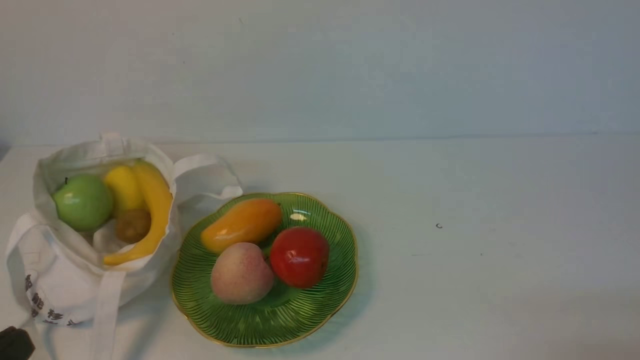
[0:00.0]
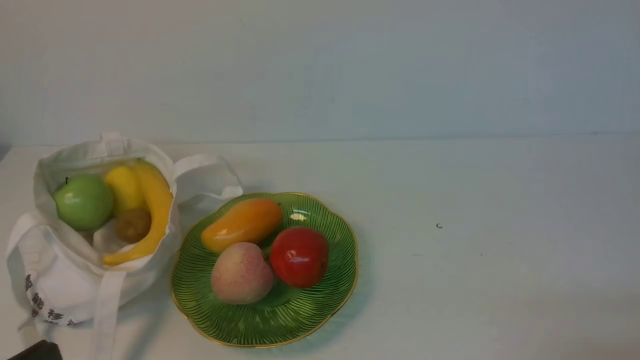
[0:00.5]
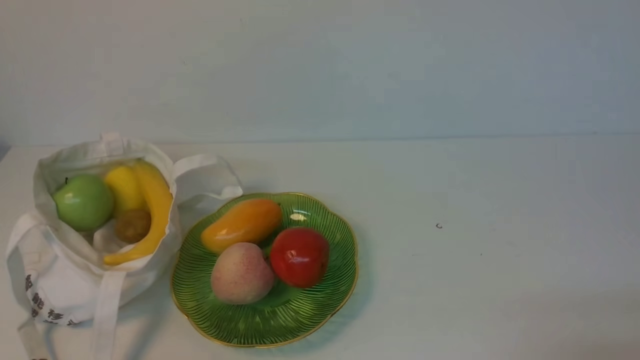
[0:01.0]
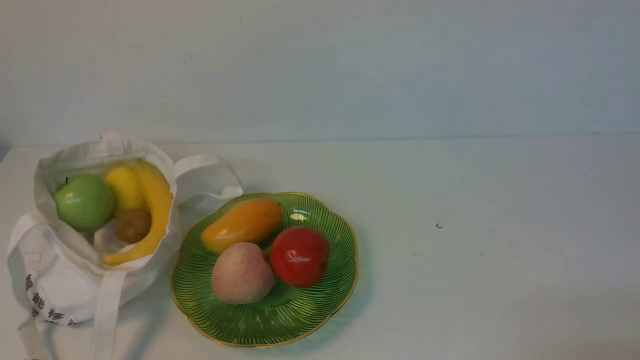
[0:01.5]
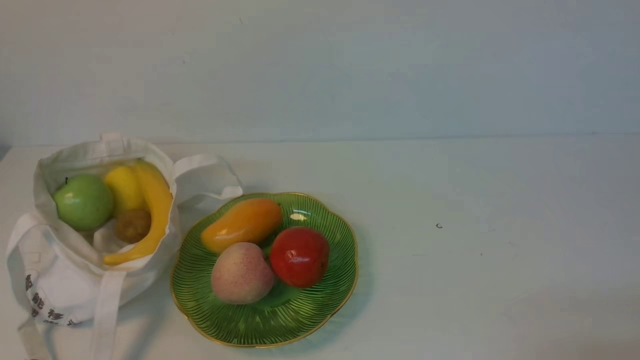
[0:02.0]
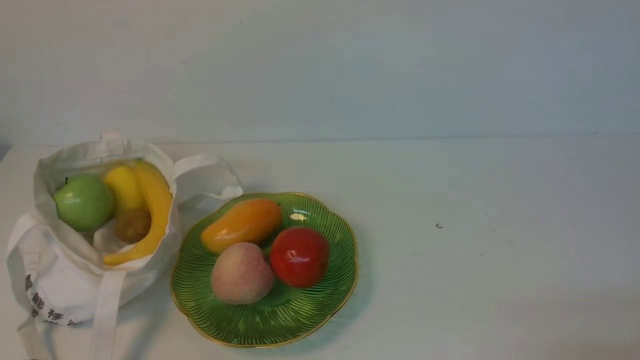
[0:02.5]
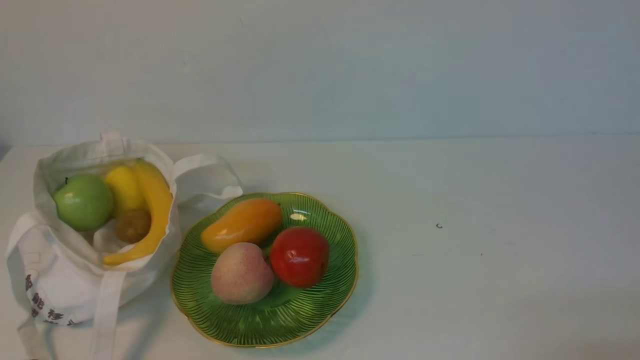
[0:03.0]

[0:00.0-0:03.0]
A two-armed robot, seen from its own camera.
0:01.5 to 0:03.0: The two grippers keep their place.

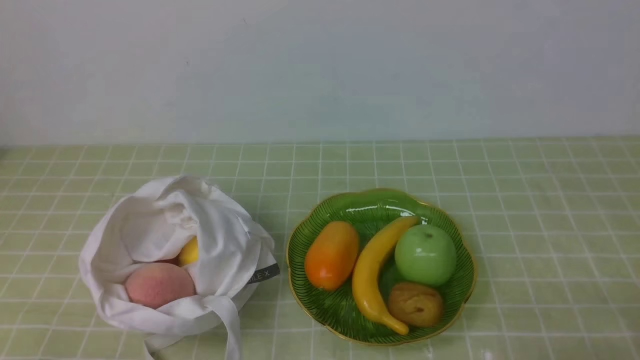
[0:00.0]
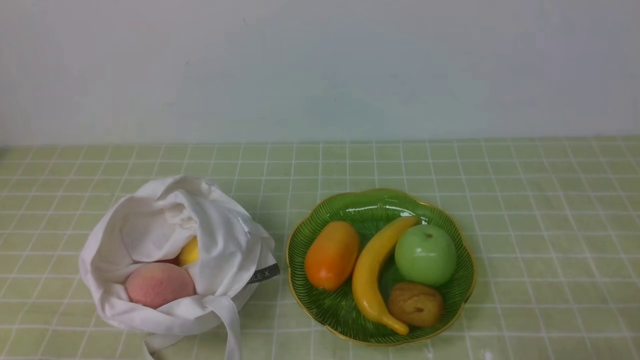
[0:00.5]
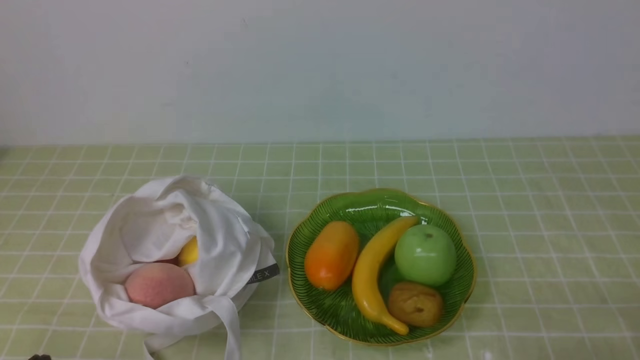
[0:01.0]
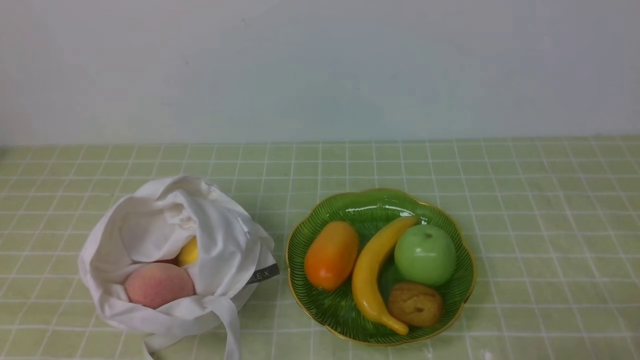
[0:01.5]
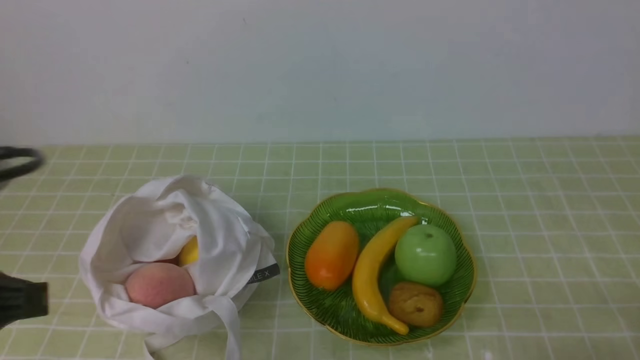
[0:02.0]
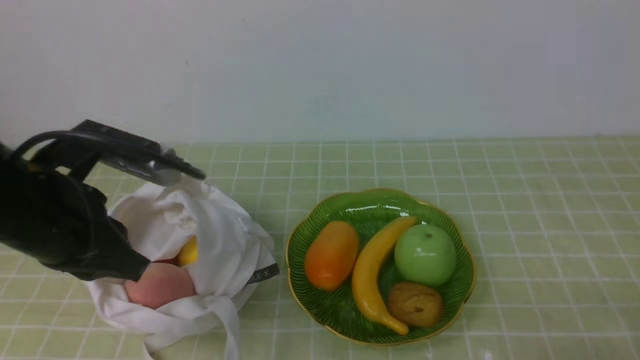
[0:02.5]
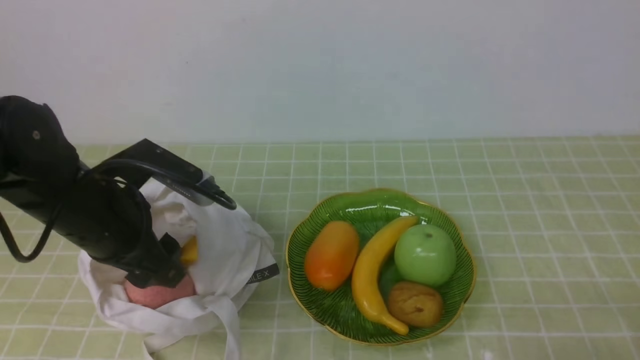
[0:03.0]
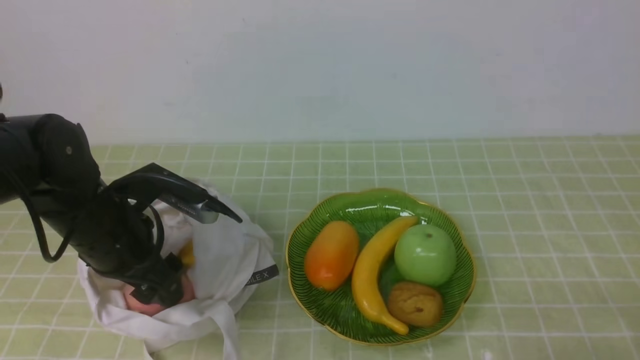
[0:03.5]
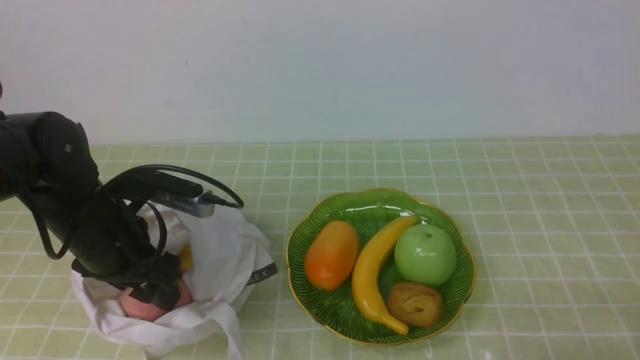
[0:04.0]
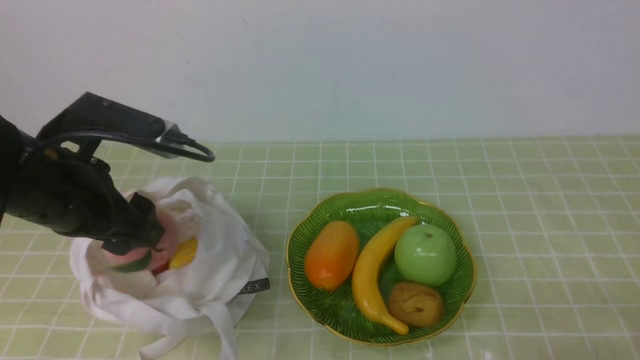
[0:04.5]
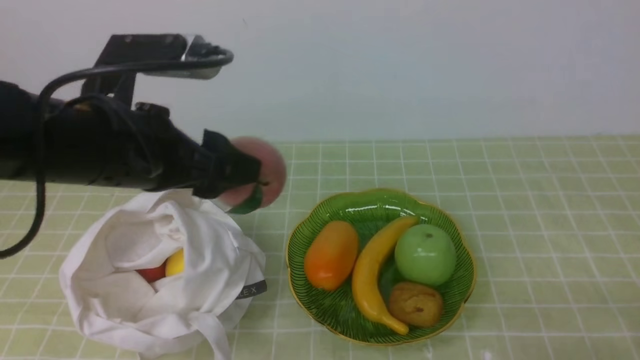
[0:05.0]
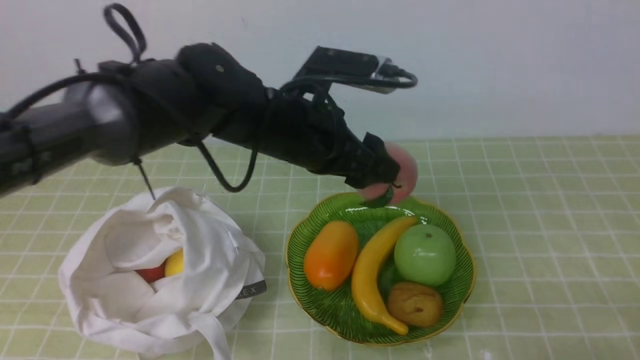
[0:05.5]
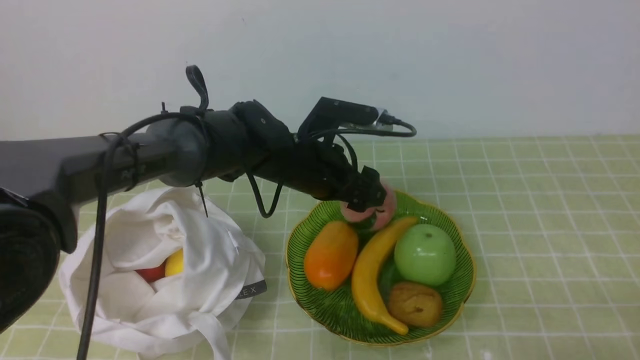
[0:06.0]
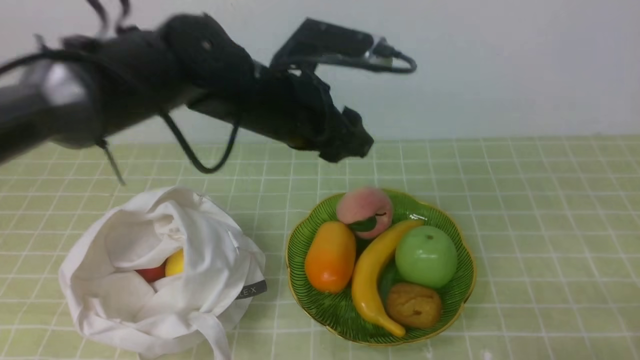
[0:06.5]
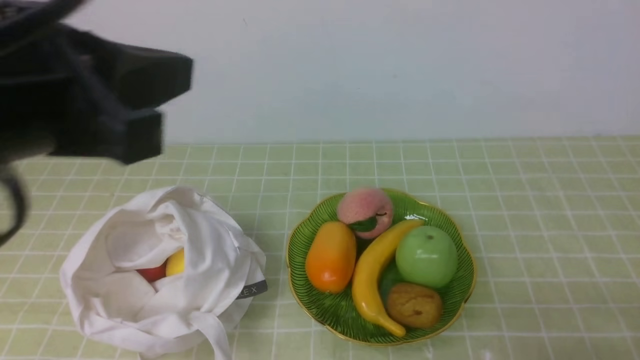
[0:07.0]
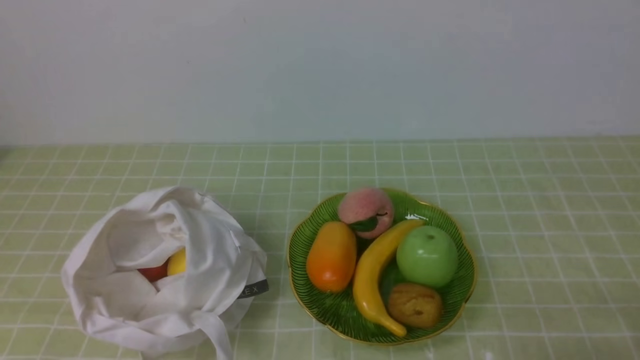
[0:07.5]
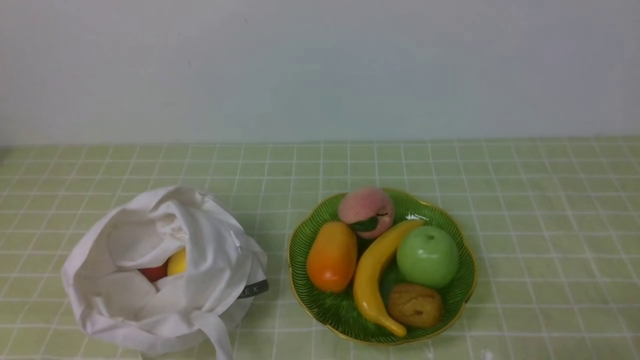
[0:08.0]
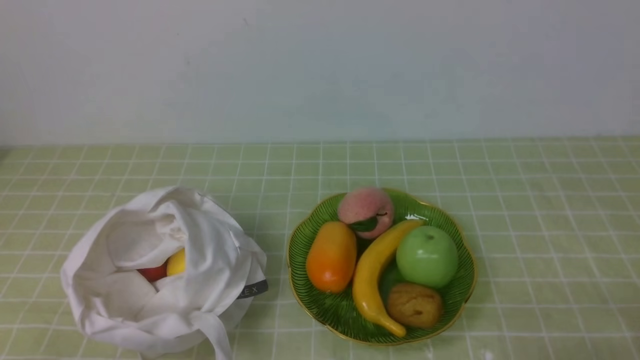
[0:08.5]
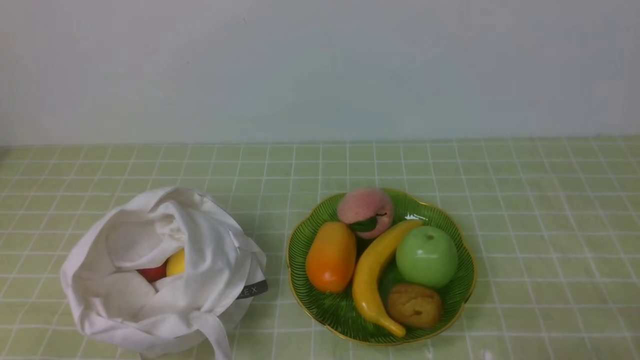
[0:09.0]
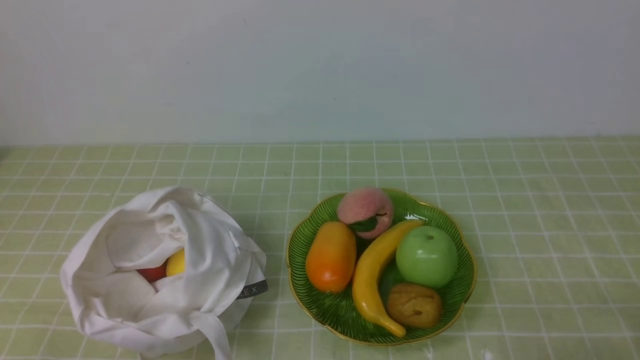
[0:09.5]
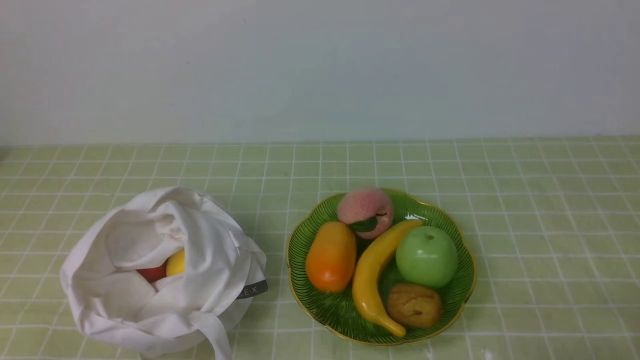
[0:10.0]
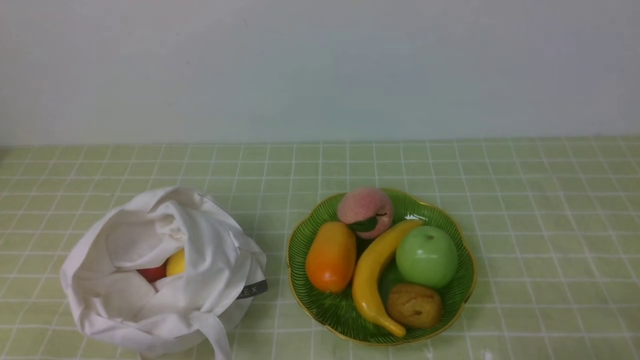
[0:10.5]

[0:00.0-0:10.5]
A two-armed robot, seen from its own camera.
Step, 0:00.0 to 0:04.0: use the left arm to grab a peach from the bag.
Step, 0:04.5 to 0:06.0: use the left arm to put the peach into the empty plate on the right.
0:02.0 to 0:04.0: The left gripper heads forward and downward, covering approximately 20 cm, and opens up.
0:04.0 to 0:06.5: The right gripper closes up. The left gripper goes roughly 20 cm to the right and forward.
0:06.5 to 0:08.5: The left gripper is displaced backward and to the left by some 35 cm, and closes its fingers.

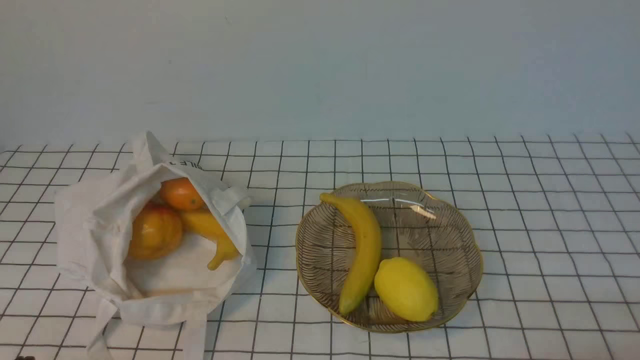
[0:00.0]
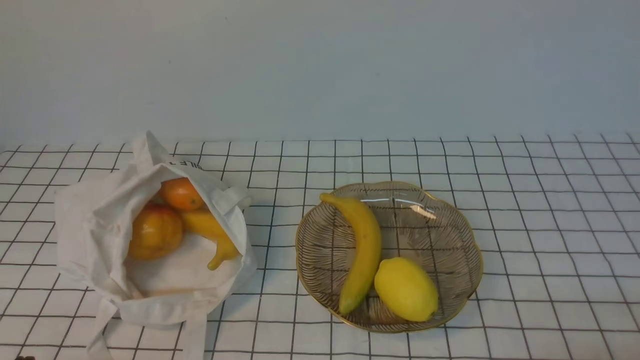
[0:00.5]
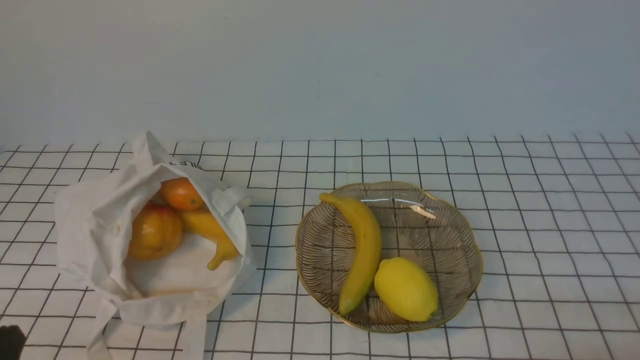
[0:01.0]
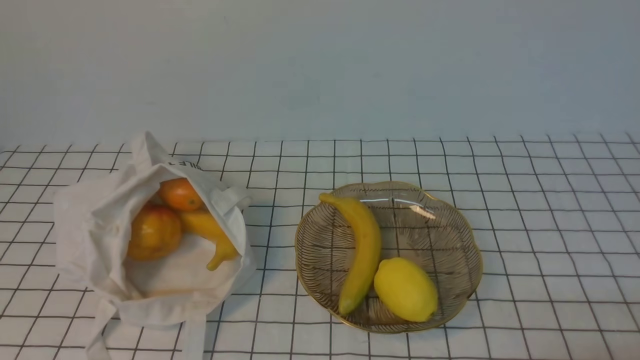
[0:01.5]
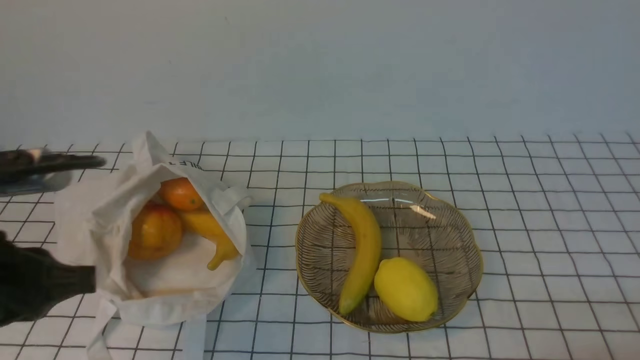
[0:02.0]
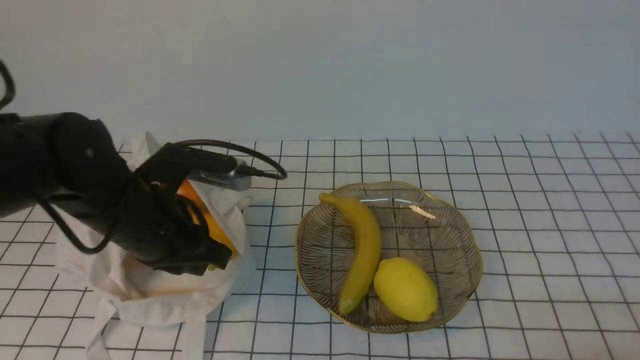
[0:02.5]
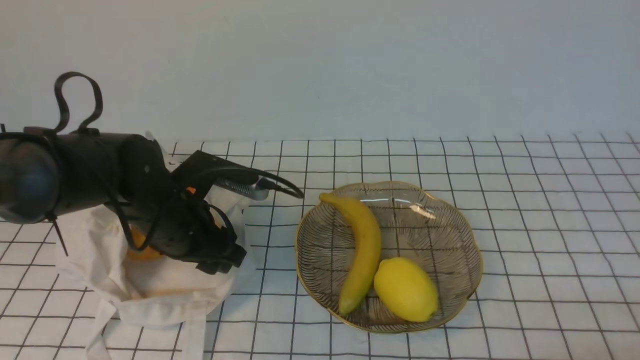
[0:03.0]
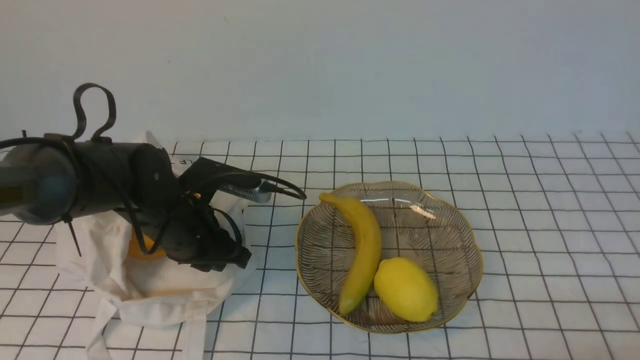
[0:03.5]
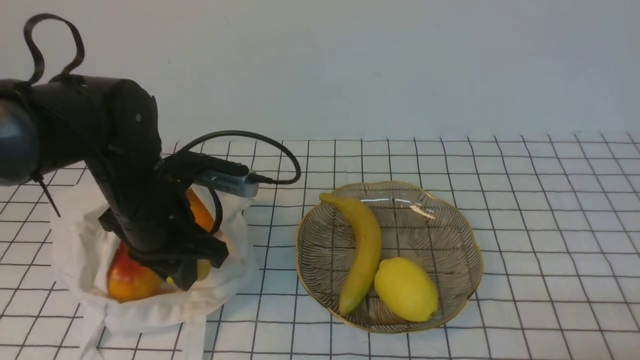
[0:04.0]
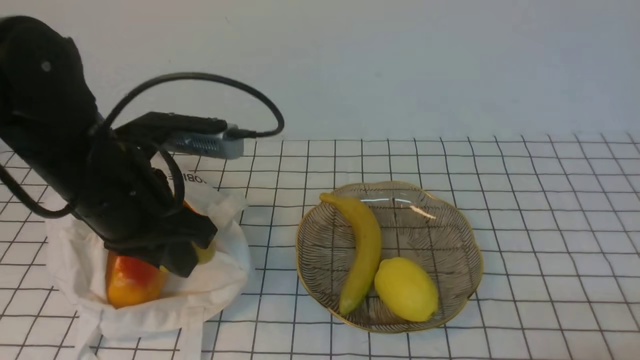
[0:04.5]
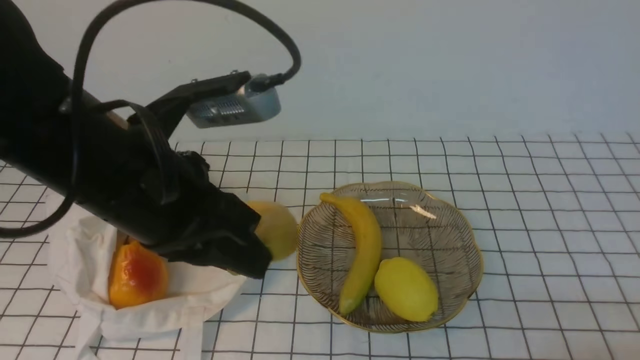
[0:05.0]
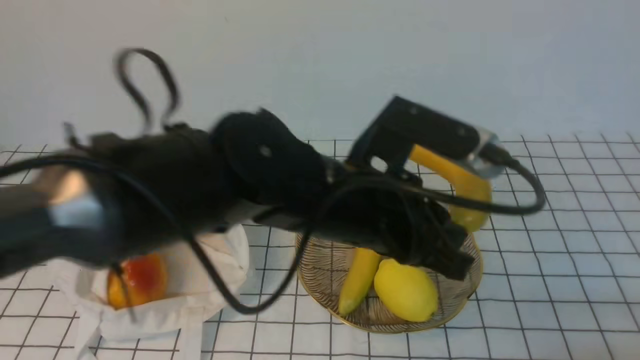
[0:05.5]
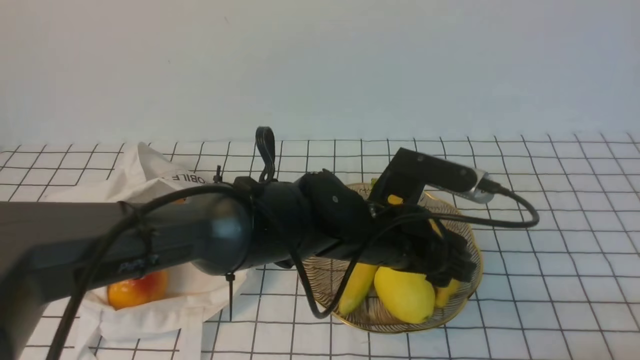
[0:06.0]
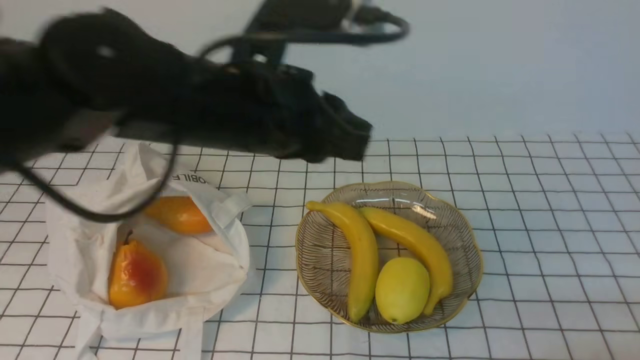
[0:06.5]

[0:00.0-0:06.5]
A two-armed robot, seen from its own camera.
Step, 0:00.0 to 0:03.5: use the left arm to grab a banana from the bag.
Step, 0:04.0 to 0:06.0: use the left arm to put the banana into the empty plate on the right.
0:00.0 to 0:02.0: The left gripper goes some 15 cm upward and forward.
0:02.0 to 0:04.5: The left gripper heads forward and to the right, covering some 10 cm, and opens and closes again.
0:04.5 to 0:06.5: The left gripper shifts some 10 cm to the right and upward, and opens, then closes once more.
